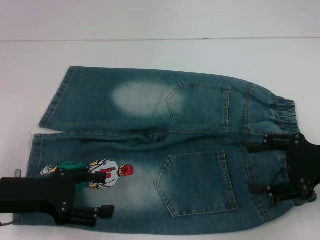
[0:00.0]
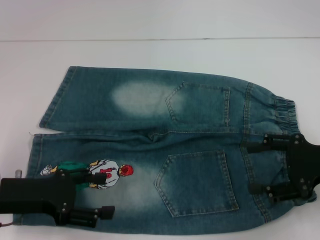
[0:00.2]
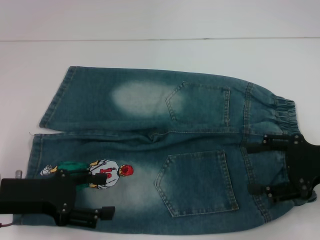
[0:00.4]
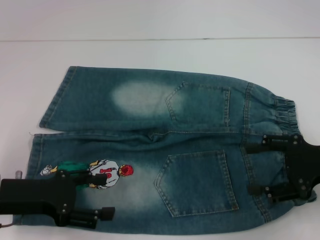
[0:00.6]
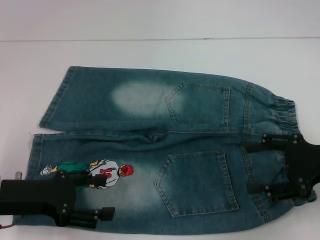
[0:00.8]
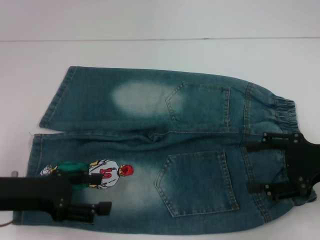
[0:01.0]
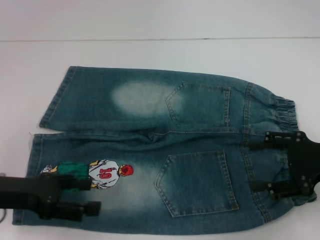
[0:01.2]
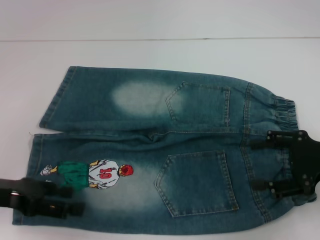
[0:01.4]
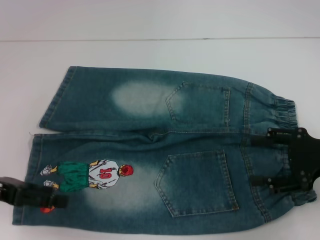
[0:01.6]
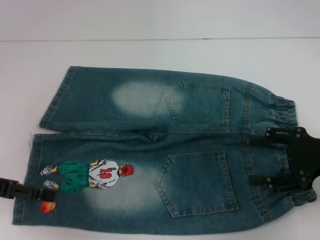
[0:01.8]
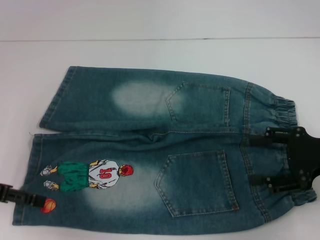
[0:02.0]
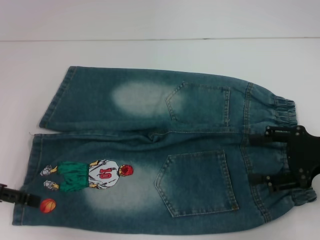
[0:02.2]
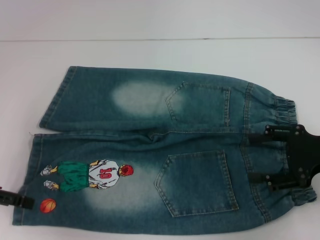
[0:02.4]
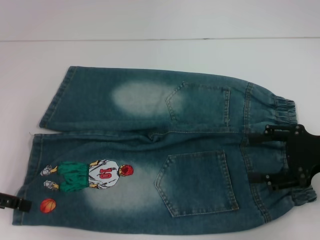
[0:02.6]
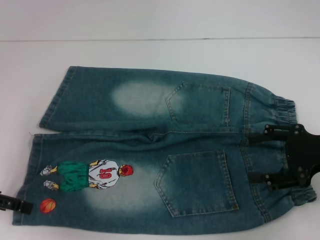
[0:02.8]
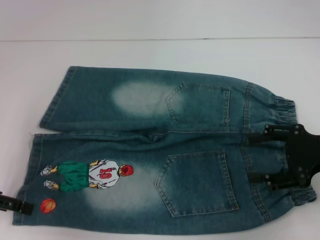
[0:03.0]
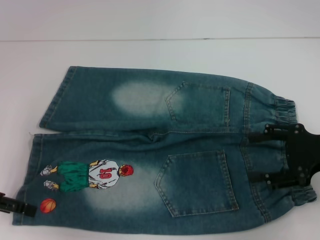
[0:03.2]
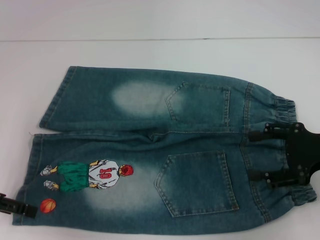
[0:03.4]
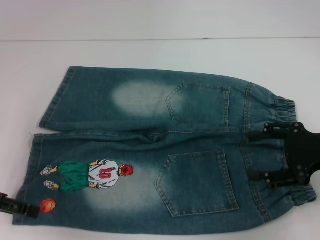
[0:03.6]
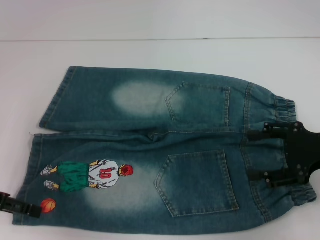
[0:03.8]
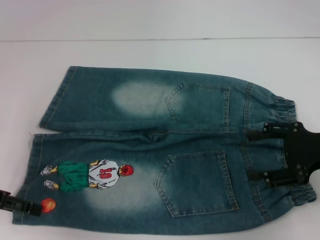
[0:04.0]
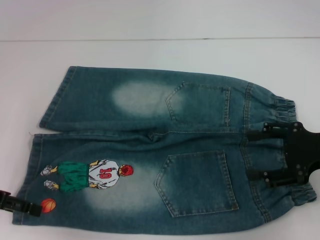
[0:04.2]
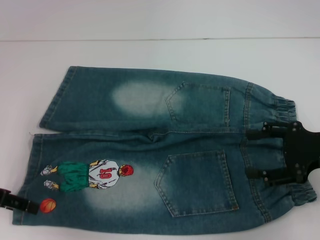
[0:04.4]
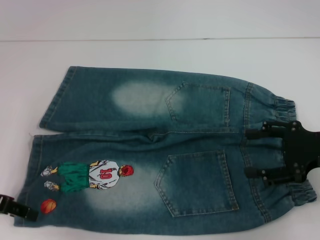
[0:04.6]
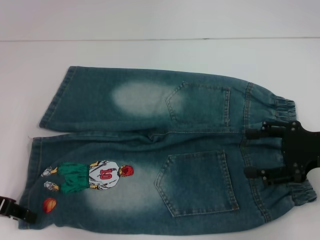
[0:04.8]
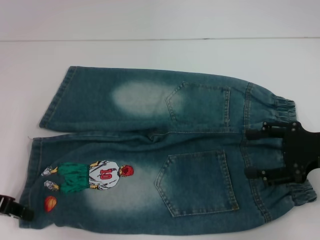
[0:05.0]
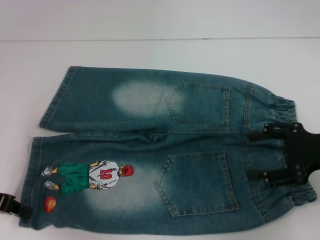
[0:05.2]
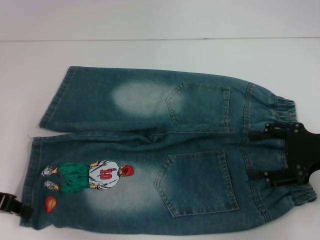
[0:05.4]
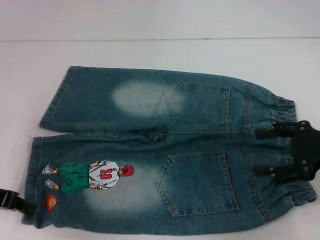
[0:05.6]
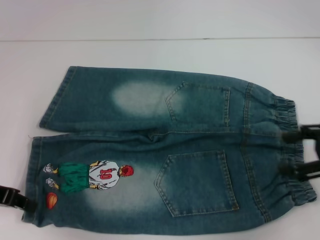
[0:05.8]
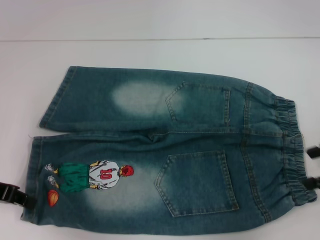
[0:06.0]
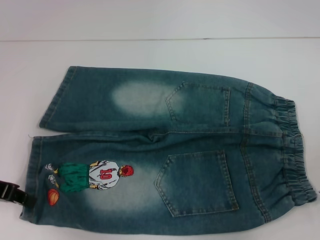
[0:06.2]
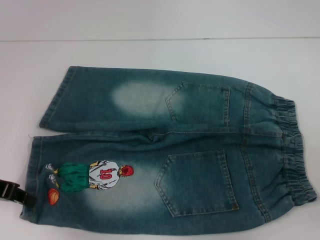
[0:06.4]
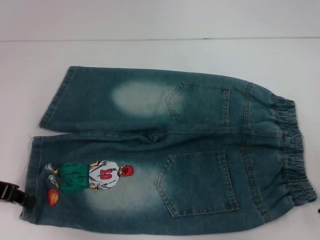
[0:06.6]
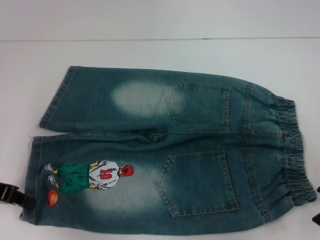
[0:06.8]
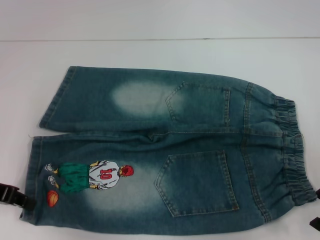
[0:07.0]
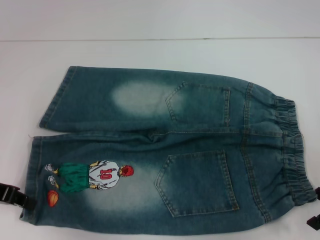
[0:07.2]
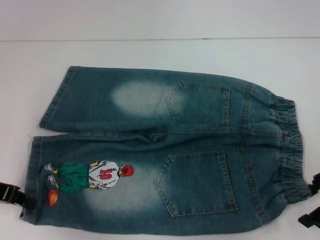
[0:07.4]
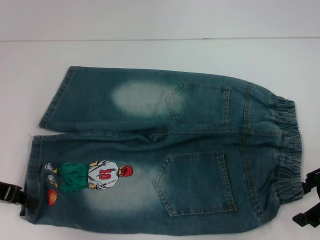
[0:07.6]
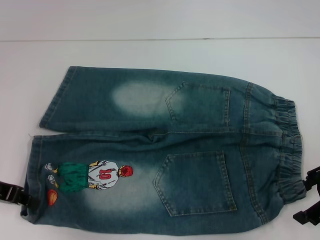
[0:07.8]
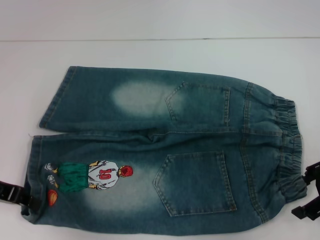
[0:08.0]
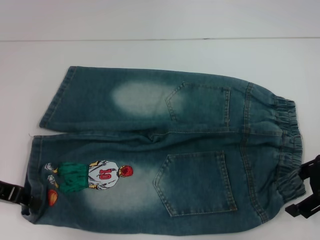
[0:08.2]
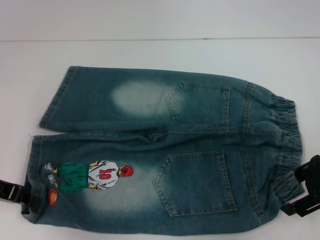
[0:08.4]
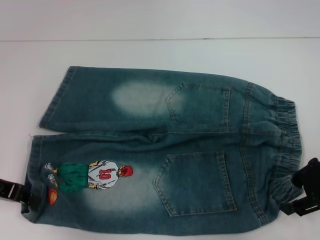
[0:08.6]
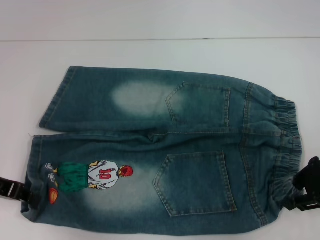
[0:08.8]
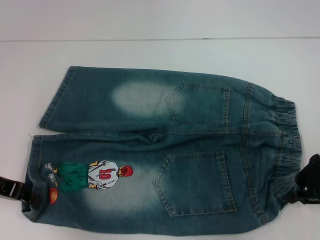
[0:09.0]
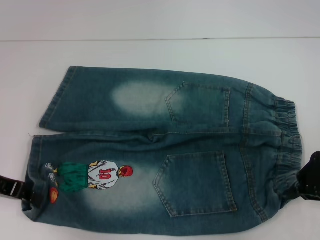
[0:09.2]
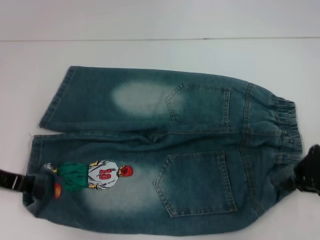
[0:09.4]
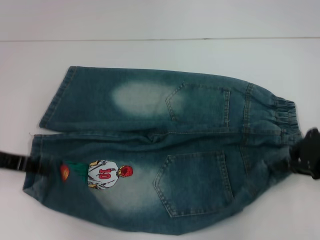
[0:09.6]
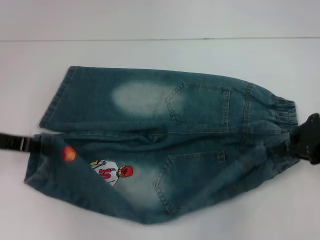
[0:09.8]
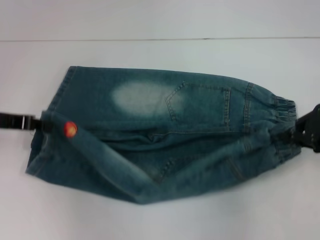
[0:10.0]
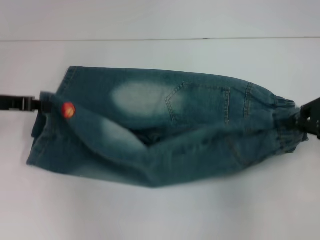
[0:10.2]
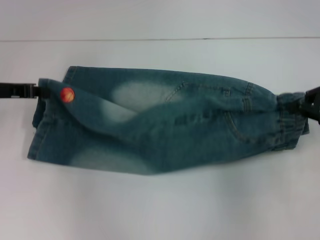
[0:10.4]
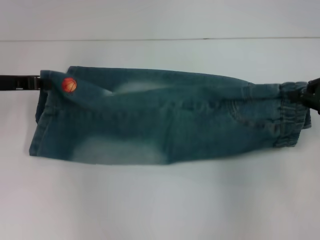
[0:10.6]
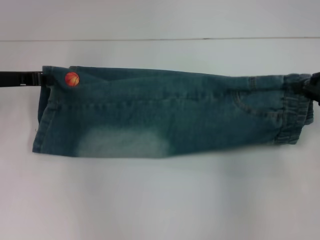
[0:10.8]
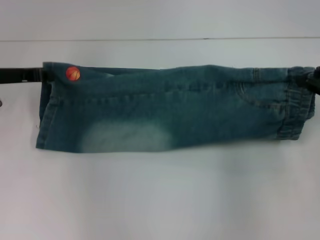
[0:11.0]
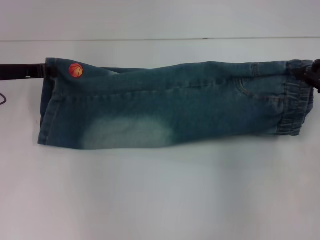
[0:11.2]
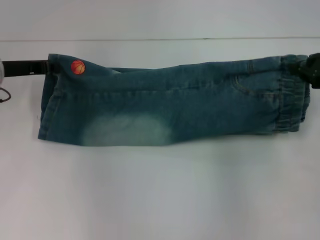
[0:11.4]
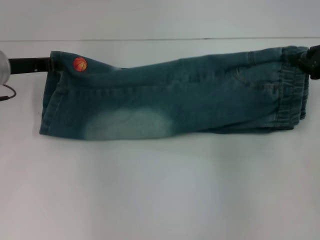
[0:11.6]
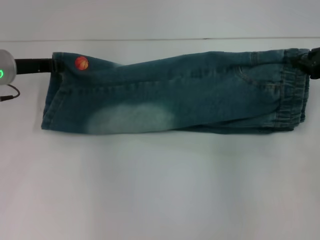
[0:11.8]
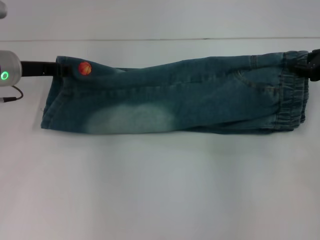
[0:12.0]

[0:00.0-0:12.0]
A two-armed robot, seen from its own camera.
Step, 0:00.0 to 0:05.8: Grab the lower left pant leg with your left hand.
Step, 0:06.0 to 0:09.0: Hold the lower right waistband with your right hand.
0:00.0 to 0:01.6: The left gripper moves about 5 cm.
0:03.0 to 0:04.4: The two grippers keep their place.
0:04.4 to 0:06.0: The right gripper changes place by about 5 cm, while the left gripper closes its fingers.
0:06.0 to 0:07.6: The right gripper moves some 5 cm.
0:07.6 to 0:09.0: The right gripper closes.
0:09.0 to 0:10.4: The left gripper shifts approximately 5 cm forward. Meanwhile the right gripper ends up about 5 cm from where it was.
0:10.4 to 0:12.0: The right gripper travels forward by about 5 cm. Meanwhile the left gripper is displaced to the right by approximately 5 cm.

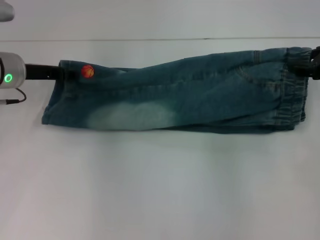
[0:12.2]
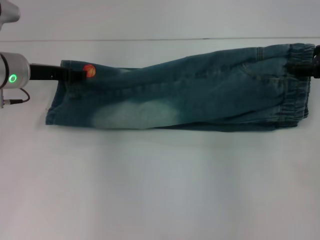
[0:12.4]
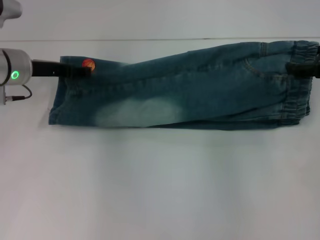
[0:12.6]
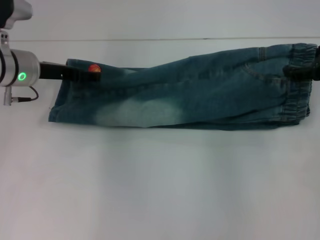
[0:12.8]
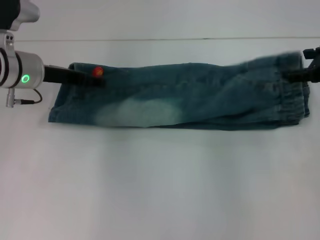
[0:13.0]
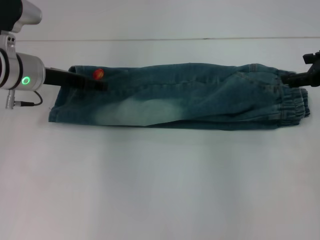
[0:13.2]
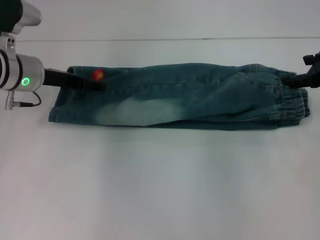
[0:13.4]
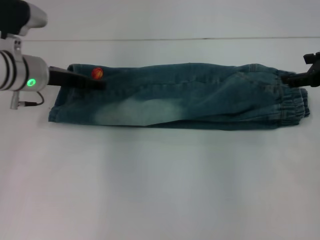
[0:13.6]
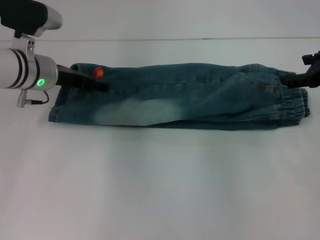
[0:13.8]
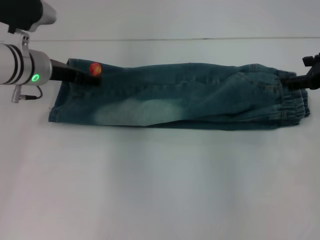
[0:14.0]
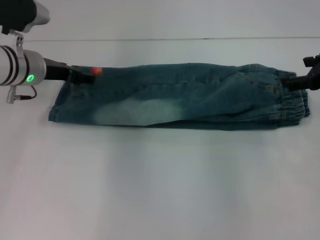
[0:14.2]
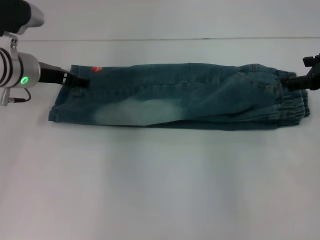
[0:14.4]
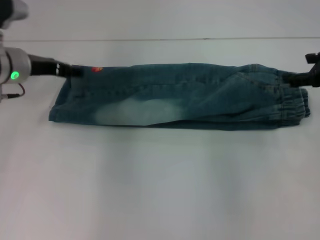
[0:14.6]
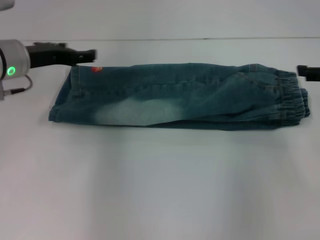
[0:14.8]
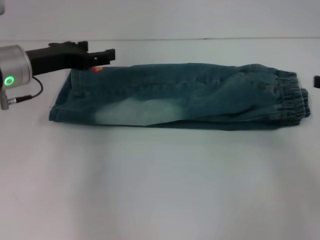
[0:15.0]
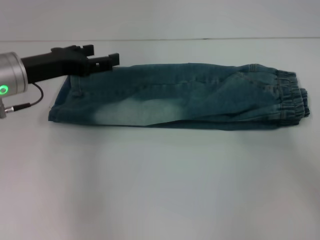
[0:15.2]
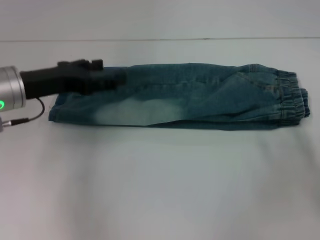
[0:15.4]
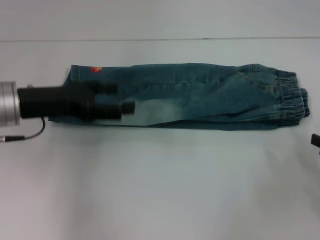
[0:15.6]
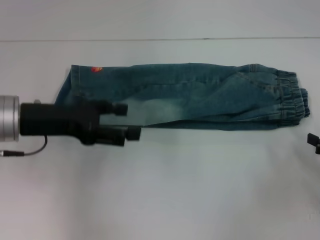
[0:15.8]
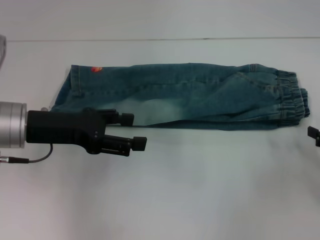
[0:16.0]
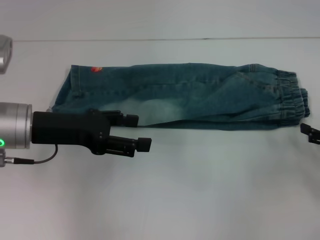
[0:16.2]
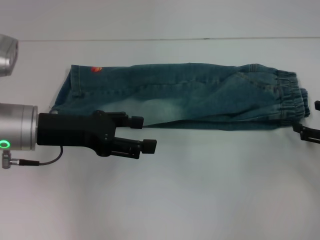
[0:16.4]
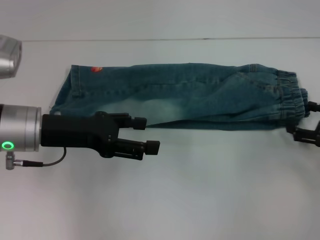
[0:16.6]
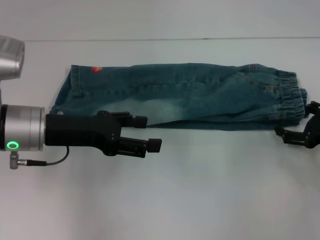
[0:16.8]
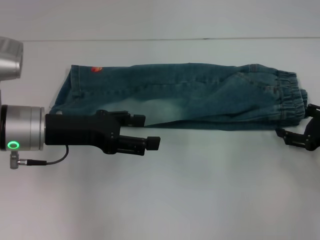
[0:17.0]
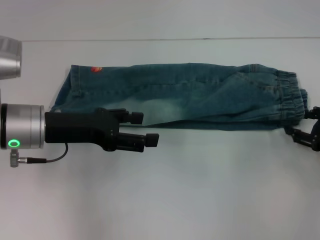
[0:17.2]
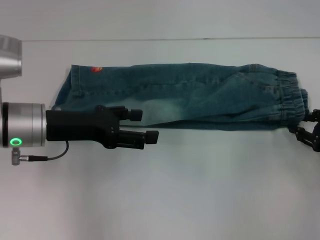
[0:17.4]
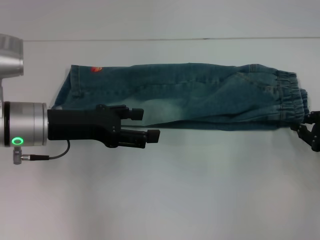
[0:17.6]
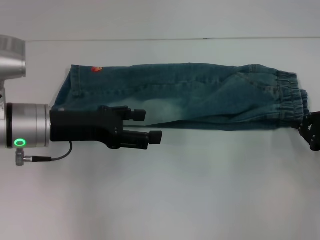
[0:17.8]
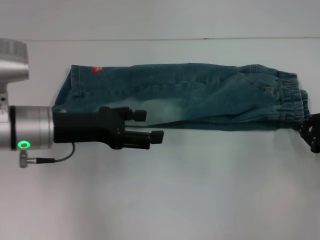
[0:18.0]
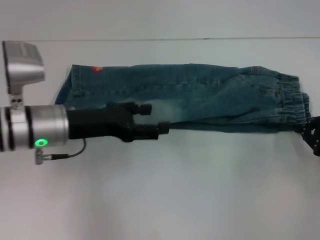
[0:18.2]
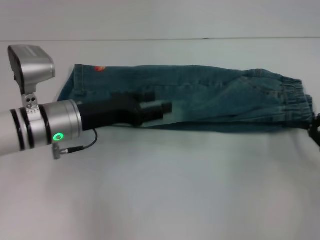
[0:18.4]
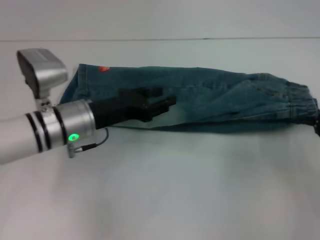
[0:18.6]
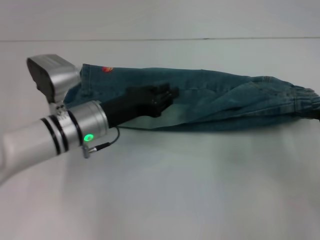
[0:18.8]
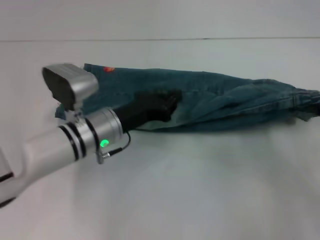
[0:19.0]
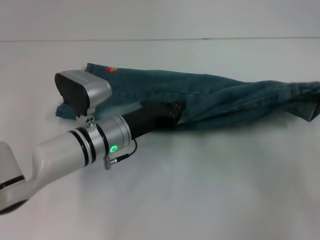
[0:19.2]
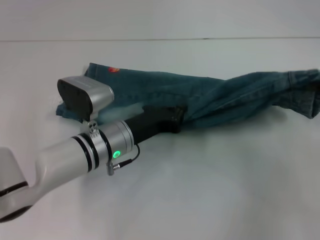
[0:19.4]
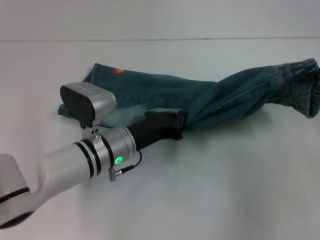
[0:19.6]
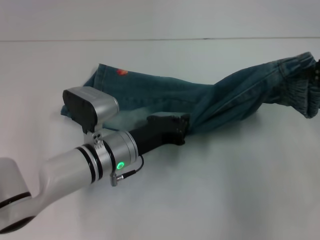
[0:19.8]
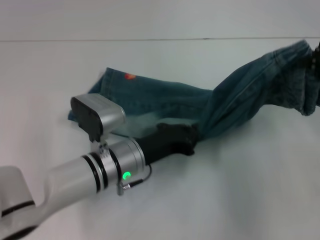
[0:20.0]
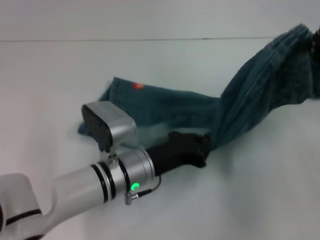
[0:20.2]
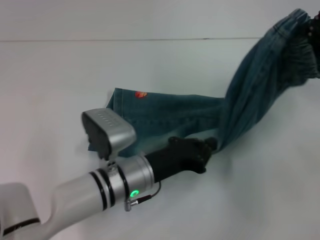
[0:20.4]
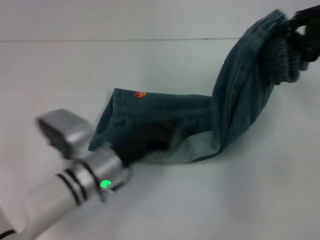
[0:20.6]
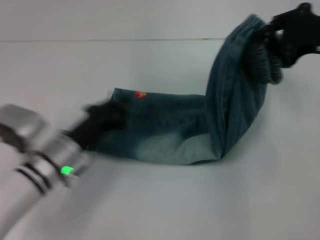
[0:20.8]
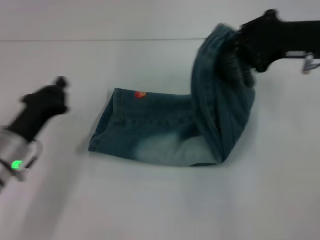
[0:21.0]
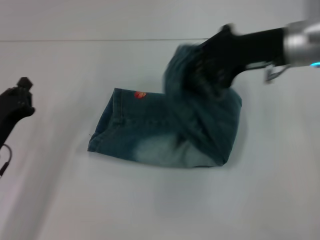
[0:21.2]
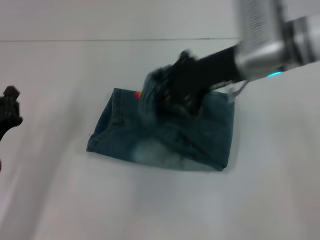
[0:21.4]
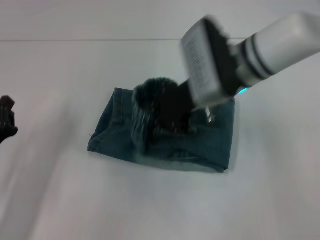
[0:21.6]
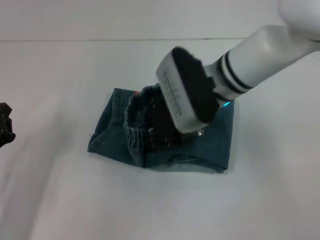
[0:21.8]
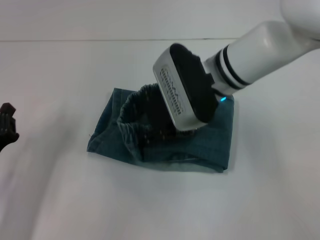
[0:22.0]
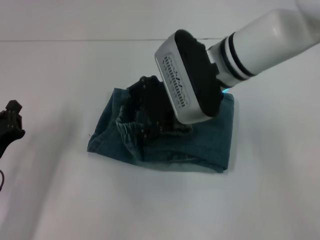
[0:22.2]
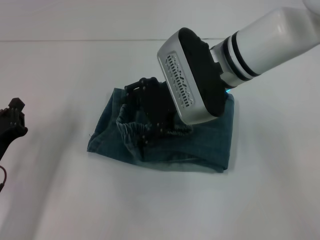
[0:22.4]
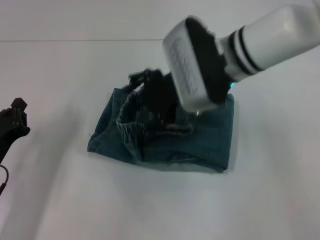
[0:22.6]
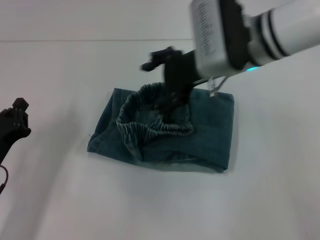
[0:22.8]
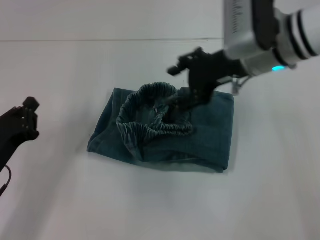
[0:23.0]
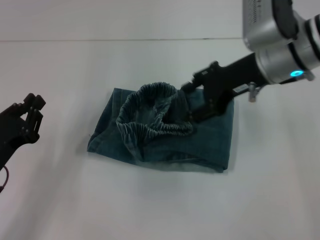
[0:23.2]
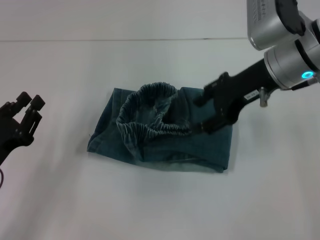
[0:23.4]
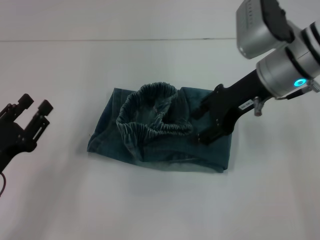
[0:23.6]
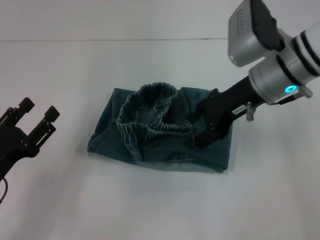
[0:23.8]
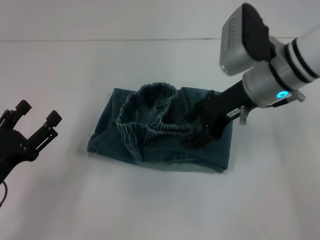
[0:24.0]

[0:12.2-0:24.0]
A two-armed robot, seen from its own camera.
Step, 0:13.6 to 0:14.4: Fold upward with your left hand.
Step, 0:14.6 to 0:18.2: Grab the waistband with your right hand.
Step, 0:18.6 to 0:20.2: Press the middle of the pants with your left hand.
0:12.2 to 0:13.6: The left gripper opens, while the right gripper opens its fingers.
0:13.6 to 0:15.2: The left gripper moves backward, about 5 cm, while the right gripper moves backward and to the right, some 15 cm.
0:15.2 to 0:16.6: The left gripper goes about 5 cm backward, while the right gripper shifts approximately 5 cm downward.
0:16.6 to 0:18.2: The right gripper closes up.
0:18.2 to 0:19.6: The right gripper travels upward by roughly 15 cm. Meanwhile the left gripper heads to the right and downward, covering about 10 cm, and closes its fingers.
0:19.6 to 0:21.0: The right gripper is displaced to the left and forward by roughly 15 cm, while the left gripper heads to the left, covering about 15 cm.
0:21.0 to 0:22.6: The right gripper shifts about 15 cm to the left, and opens. The left gripper changes place by roughly 5 cm.
0:22.6 to 0:24.0: The left gripper opens; the right gripper moves to the right, some 5 cm.
